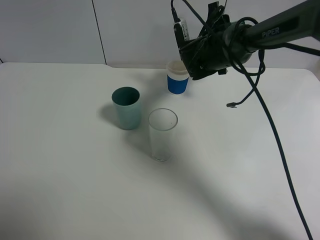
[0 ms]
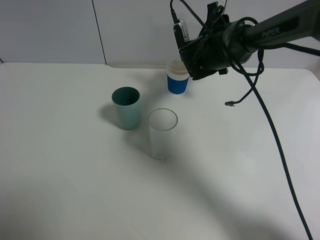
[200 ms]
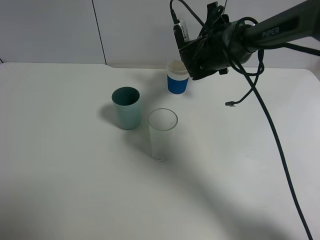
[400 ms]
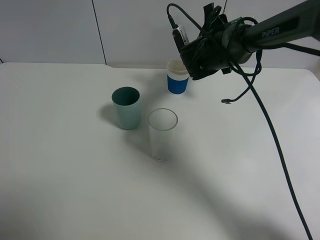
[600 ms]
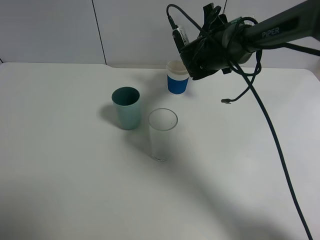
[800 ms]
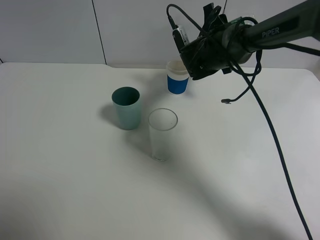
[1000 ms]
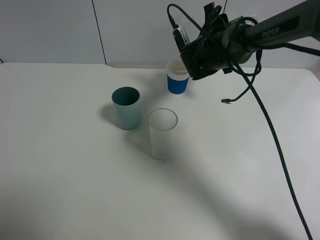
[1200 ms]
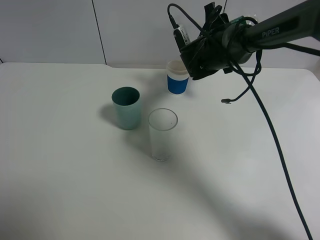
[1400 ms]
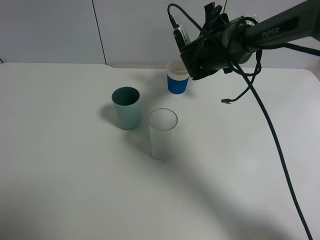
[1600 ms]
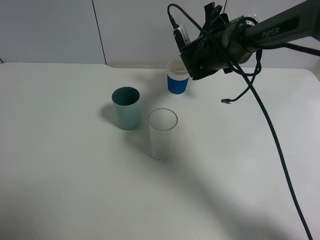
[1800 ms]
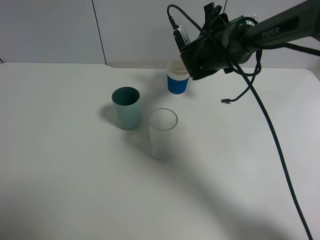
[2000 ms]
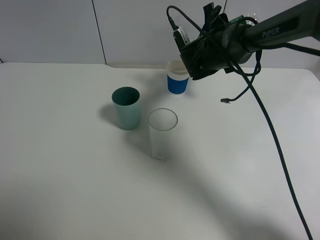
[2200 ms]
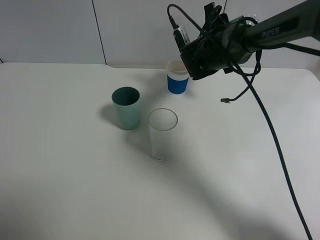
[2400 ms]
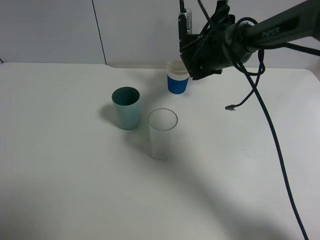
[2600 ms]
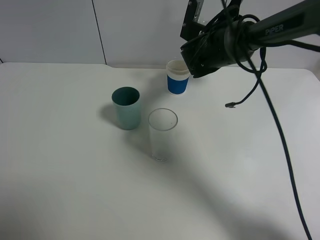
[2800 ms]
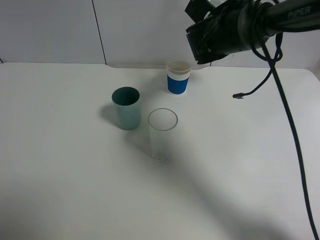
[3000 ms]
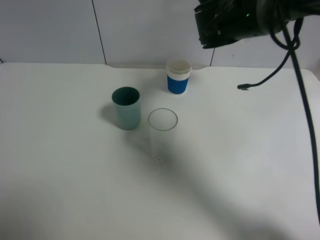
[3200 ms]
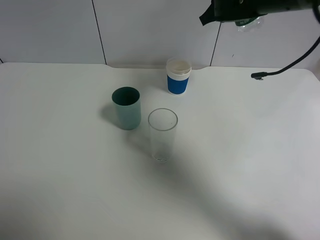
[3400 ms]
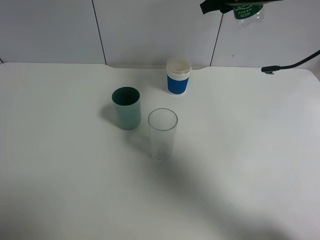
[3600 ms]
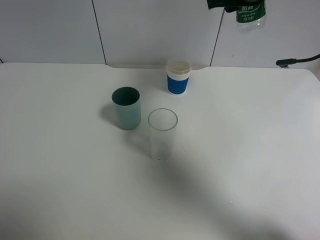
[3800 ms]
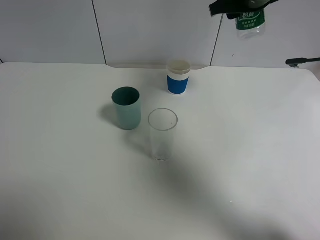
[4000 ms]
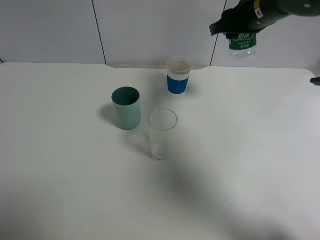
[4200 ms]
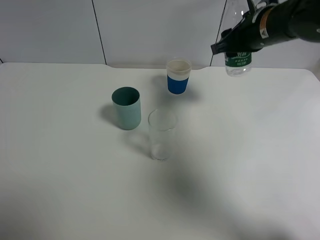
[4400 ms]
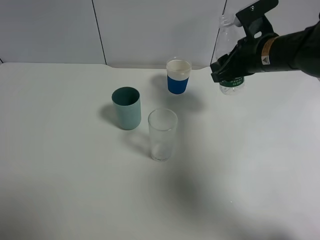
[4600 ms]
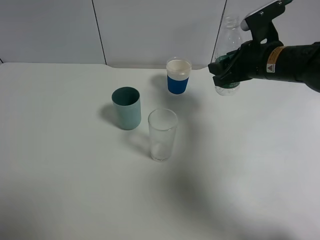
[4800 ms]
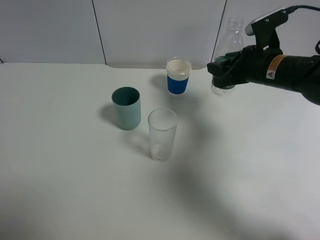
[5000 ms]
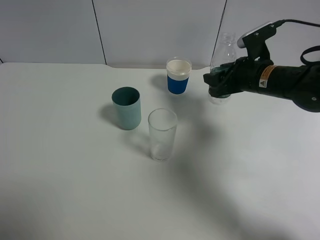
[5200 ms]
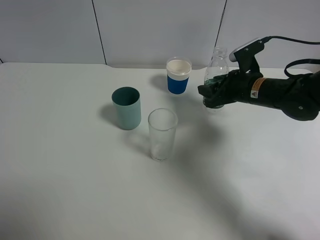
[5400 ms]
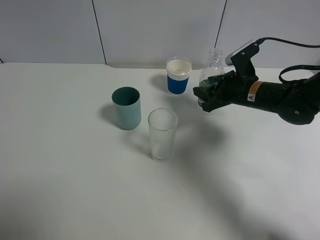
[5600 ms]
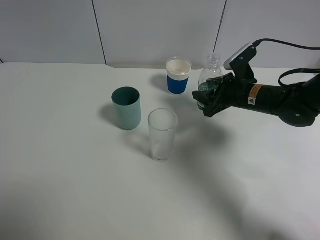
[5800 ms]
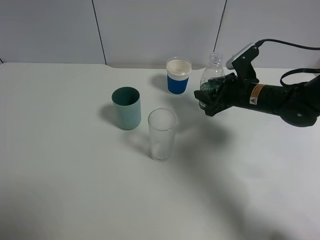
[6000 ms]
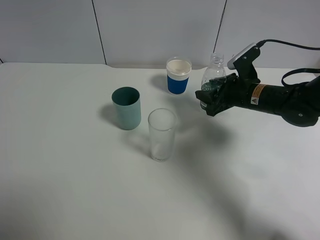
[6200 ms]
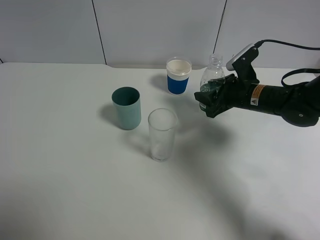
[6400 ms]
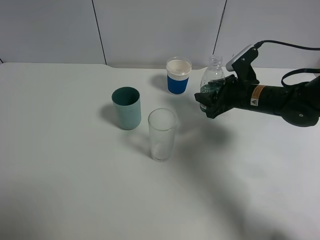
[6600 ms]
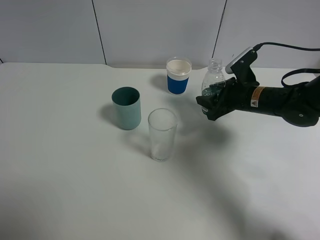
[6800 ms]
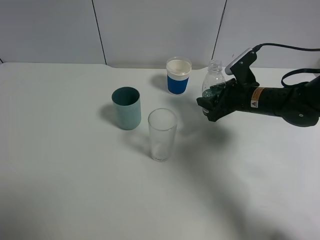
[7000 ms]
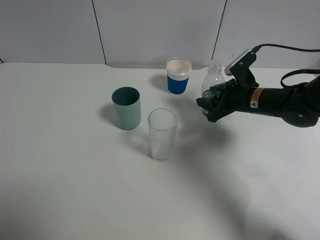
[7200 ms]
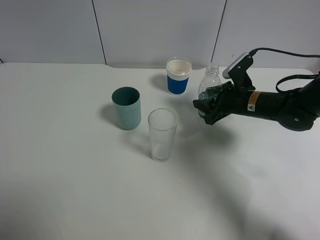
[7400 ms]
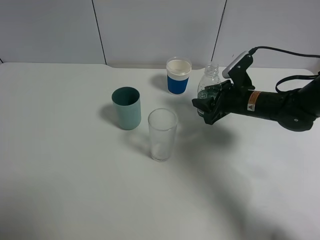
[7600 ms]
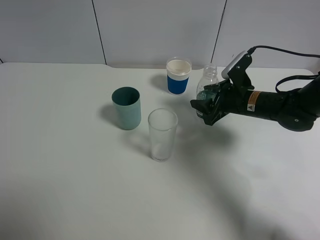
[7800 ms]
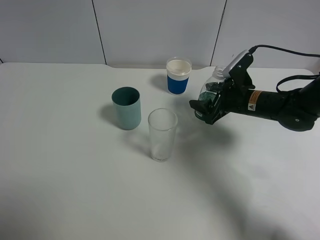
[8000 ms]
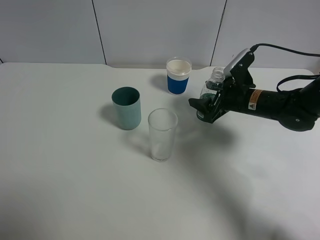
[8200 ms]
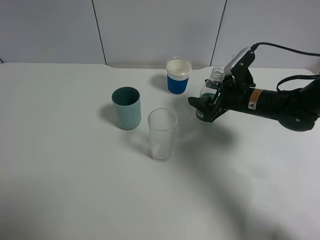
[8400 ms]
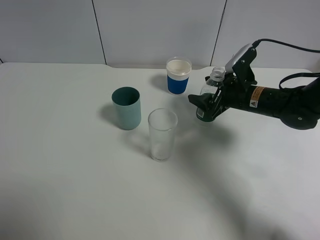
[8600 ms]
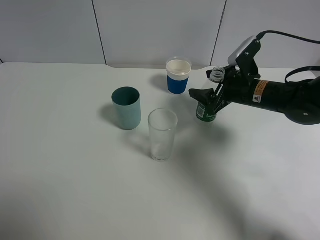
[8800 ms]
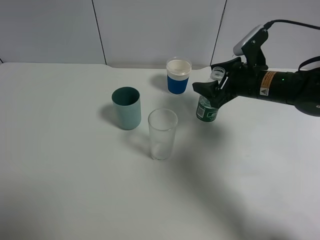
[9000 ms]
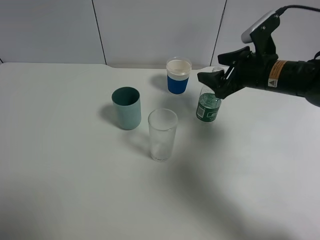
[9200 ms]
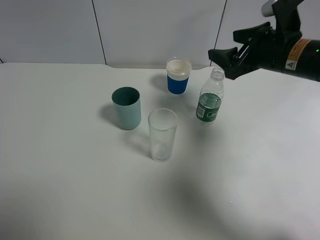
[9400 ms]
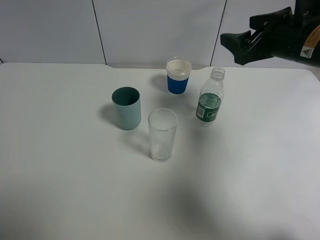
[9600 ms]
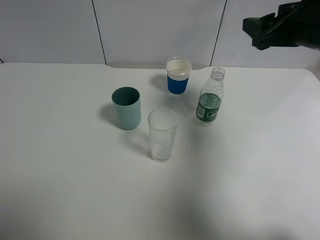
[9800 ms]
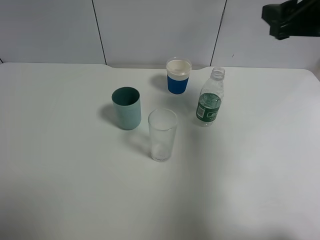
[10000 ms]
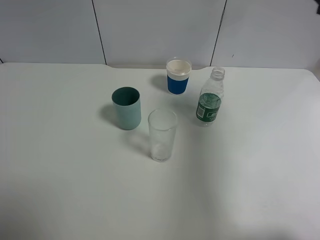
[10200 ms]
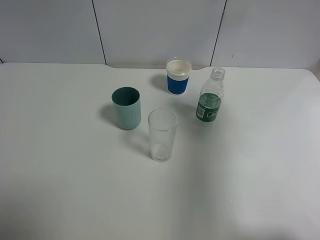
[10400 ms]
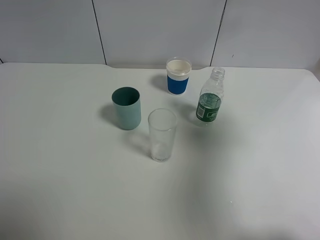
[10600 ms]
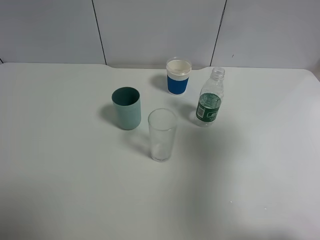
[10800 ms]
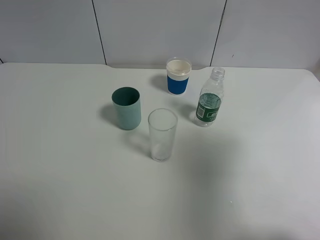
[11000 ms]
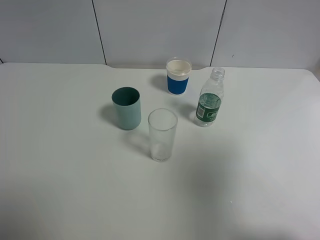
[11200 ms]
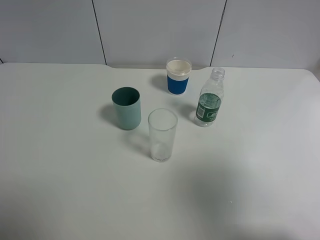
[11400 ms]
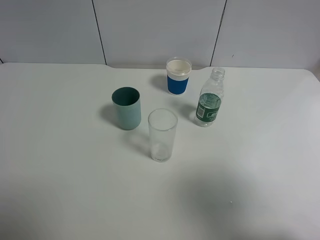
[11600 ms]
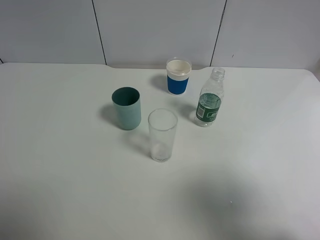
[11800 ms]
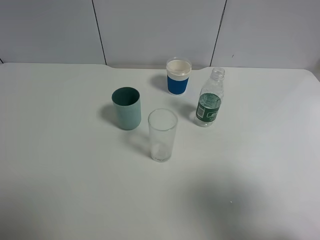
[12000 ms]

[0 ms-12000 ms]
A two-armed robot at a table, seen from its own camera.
Task of the whole recording: use a gripper to hold the bottle of the drink and pour it into a random cup.
Step, 2000 ms to 8000 ms: Place the mineral water bottle on the table with the right gripper.
0 ms to 1600 ms: The grippers stay close to where they were, moving slightly.
3000 ms to 4400 ms: The right gripper travels backward and to the right by some 10 cm, and goes upward and returns, roughly 10 cm each way.
4400 ms to 6000 ms: The right gripper heads downward, covering some 15 cm.
6000 ms to 7600 ms: The grippers stay close to where they were, moving slightly.
7600 ms to 9000 ms: The right gripper travels upward by roughly 5 cm, and opens up.
9000 ms to 10400 ms: The right gripper travels upward, backward and to the right by roughly 25 cm.
10400 ms to 12000 ms: The right gripper travels backward by some 20 cm.

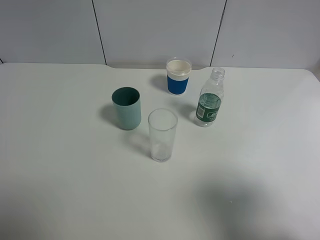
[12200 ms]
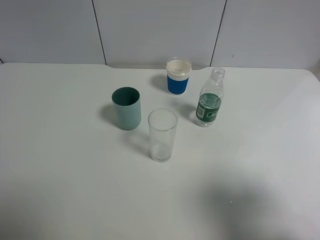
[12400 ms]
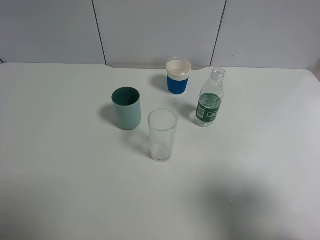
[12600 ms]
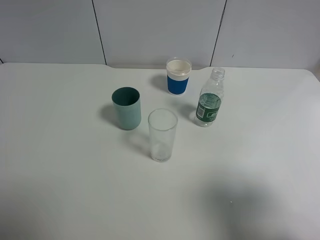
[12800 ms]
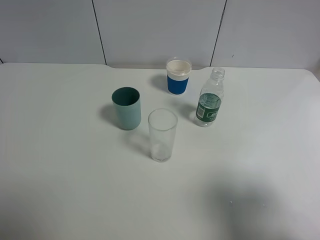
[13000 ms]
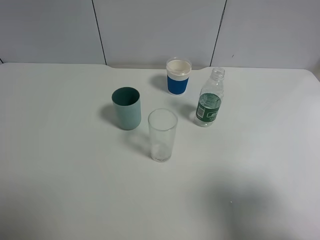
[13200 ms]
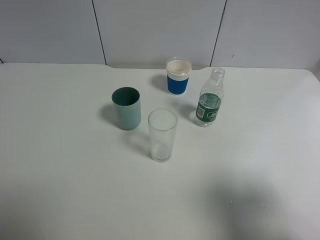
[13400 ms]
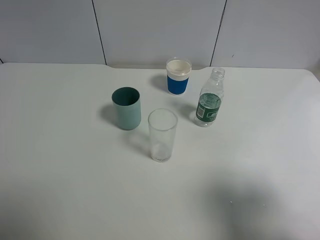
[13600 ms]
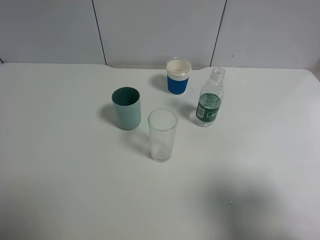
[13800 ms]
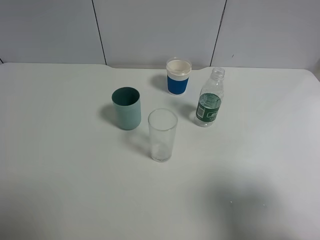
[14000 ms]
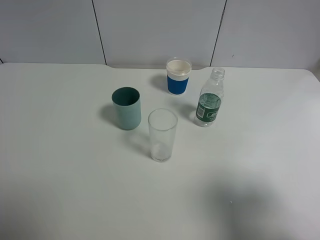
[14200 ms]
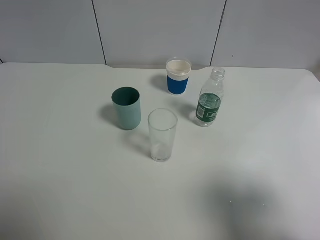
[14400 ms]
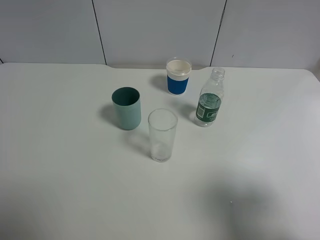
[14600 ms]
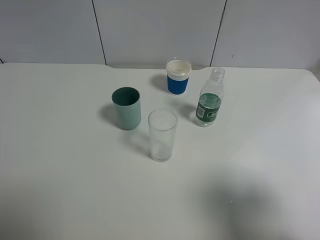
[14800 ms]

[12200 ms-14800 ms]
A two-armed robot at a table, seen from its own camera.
Task of the whole recording: use a gripper to hold the bottle of the drink and pour it into a random cup.
12200 ms to 14800 ms: Both grippers stay about where they are.

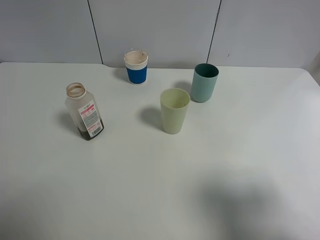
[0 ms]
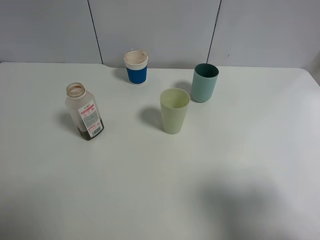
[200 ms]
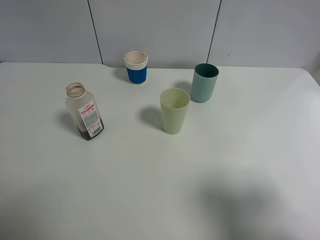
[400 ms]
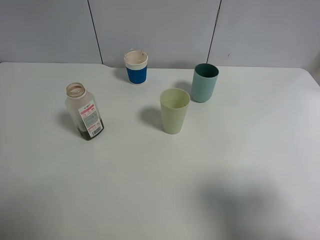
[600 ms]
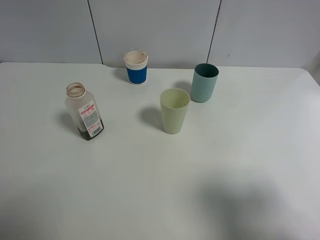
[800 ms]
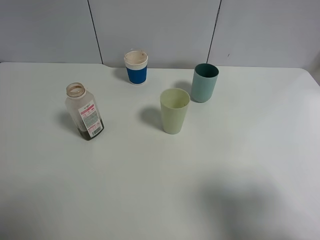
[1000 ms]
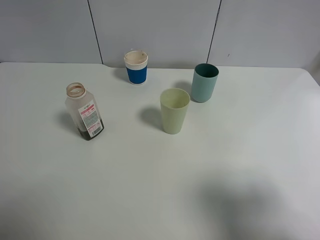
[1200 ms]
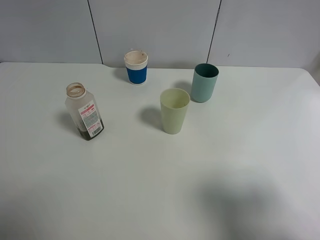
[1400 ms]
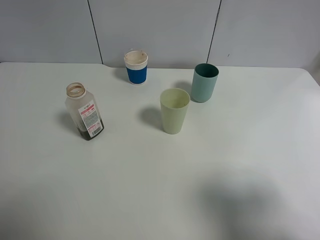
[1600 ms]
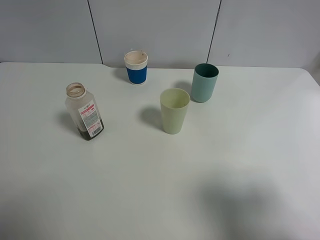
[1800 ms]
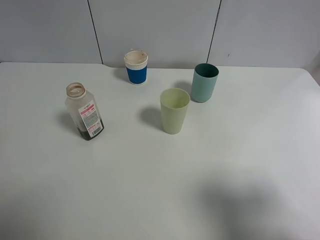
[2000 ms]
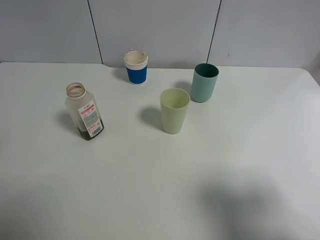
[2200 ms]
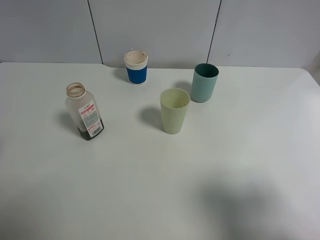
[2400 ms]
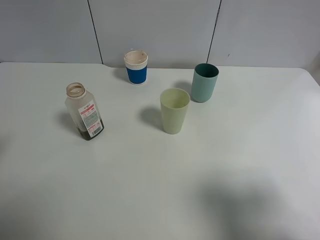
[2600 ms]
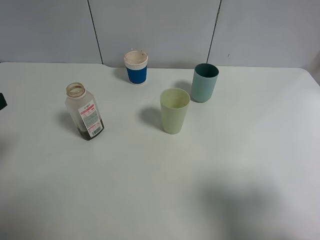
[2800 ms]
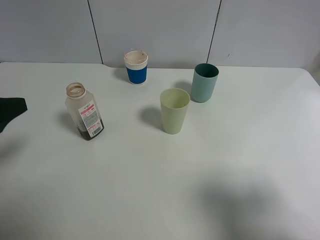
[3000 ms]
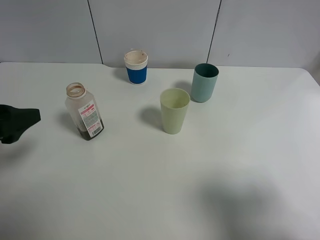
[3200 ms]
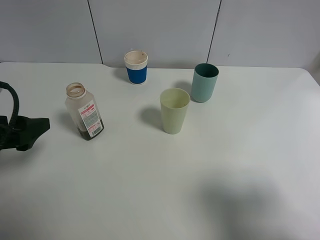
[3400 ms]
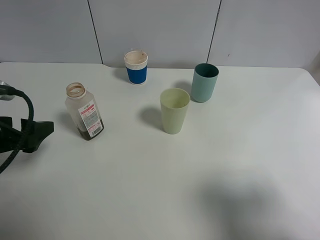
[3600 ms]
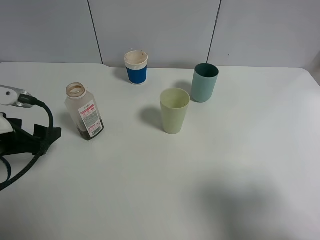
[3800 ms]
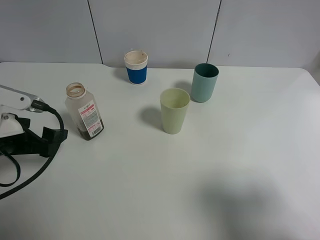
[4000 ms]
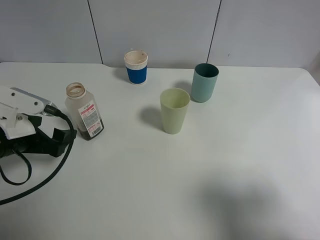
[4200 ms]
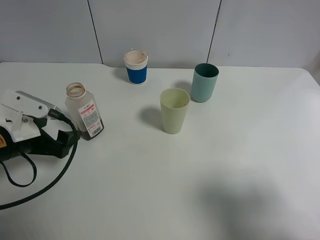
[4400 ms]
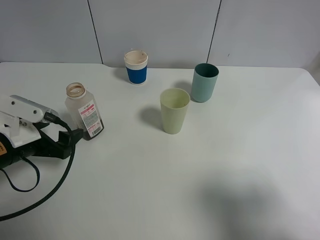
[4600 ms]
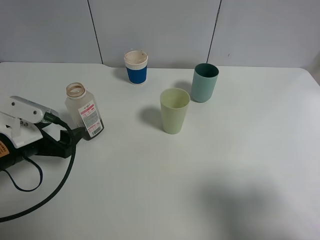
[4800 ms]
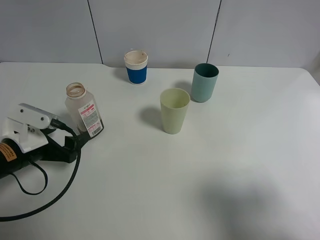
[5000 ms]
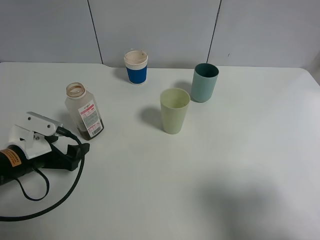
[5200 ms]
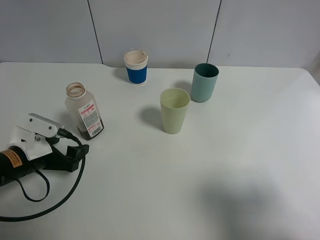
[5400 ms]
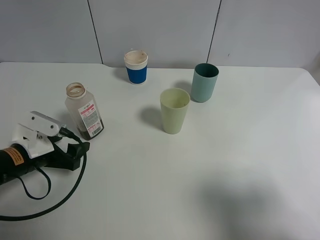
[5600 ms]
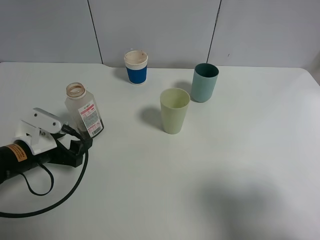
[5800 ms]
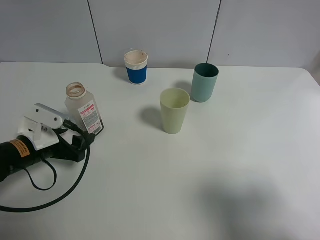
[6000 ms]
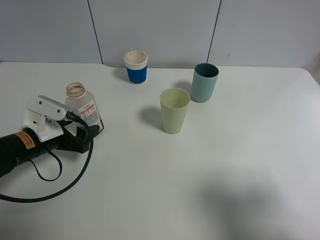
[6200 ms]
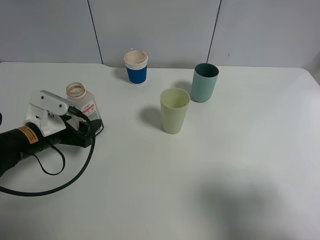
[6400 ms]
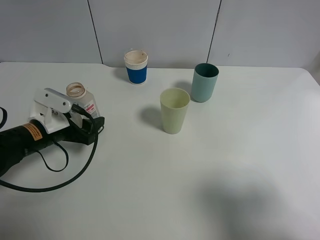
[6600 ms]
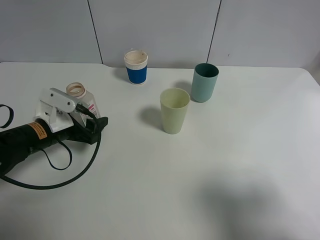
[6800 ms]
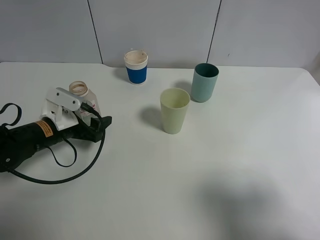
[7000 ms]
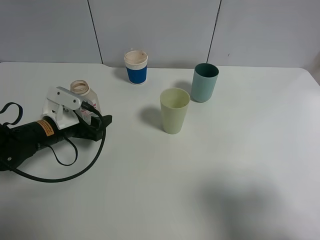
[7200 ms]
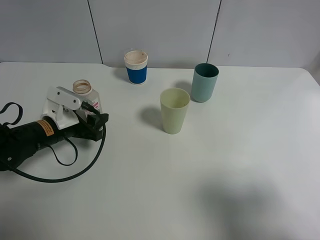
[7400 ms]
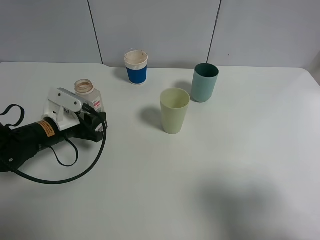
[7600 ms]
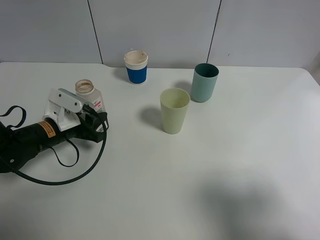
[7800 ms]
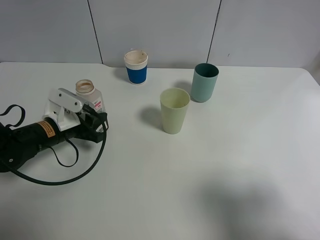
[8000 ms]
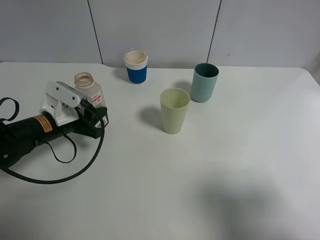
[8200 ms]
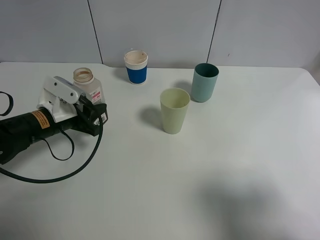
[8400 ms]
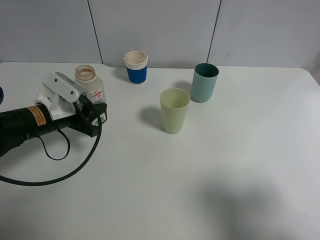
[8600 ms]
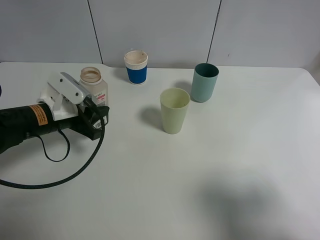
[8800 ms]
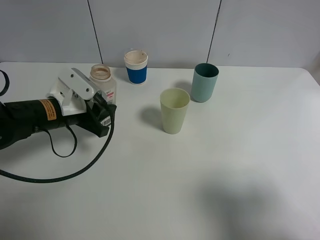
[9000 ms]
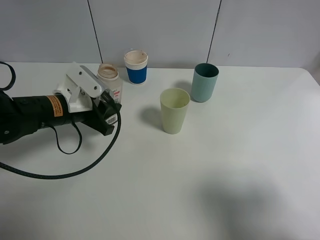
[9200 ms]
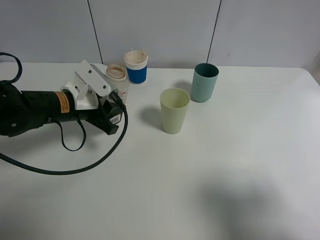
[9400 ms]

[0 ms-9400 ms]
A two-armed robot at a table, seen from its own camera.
Task of the whole recording: use a gripper to hold the bottle of the drink and pour it into a random cup.
Step, 0 ms to 7400 ms: Grasp the cranberry juice bottle with the left gripper.
1600 ms to 3200 ms: The left gripper heads downward and forward, covering about 15 cm.
3200 ms to 4800 ms: The left gripper is displaced downward and forward by about 10 cm.
4800 ms to 6200 ms: There are only small adjustments of the grippers.
6200 ms to 7800 ms: The left gripper closes its fingers.
7800 ms to 9400 ms: The left gripper shifts some 10 cm upward and to the right.
